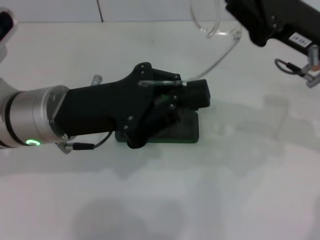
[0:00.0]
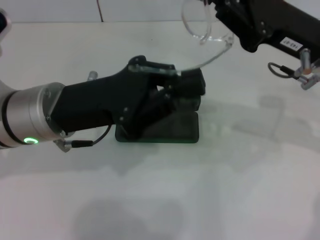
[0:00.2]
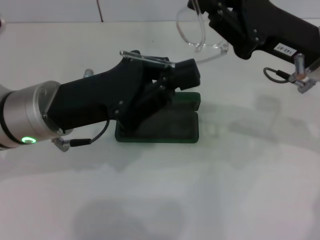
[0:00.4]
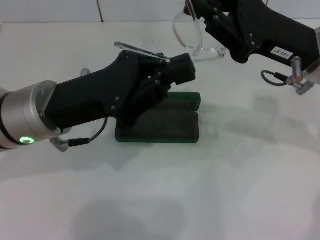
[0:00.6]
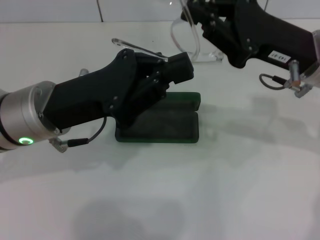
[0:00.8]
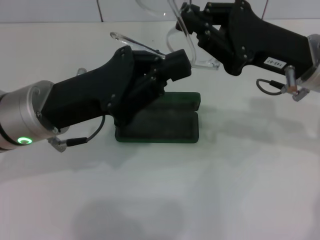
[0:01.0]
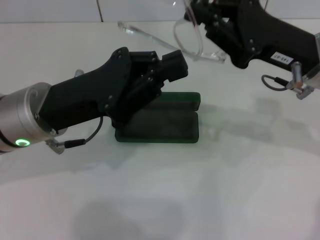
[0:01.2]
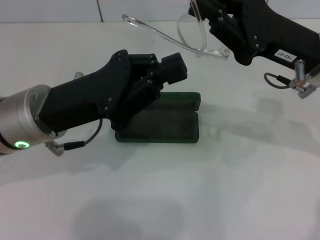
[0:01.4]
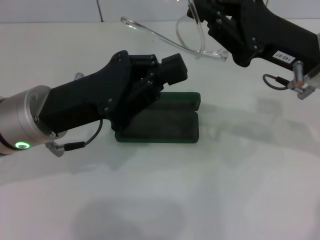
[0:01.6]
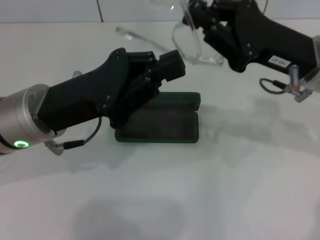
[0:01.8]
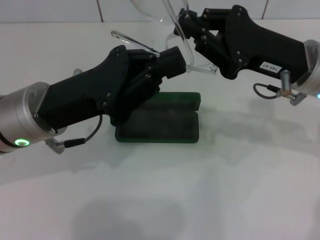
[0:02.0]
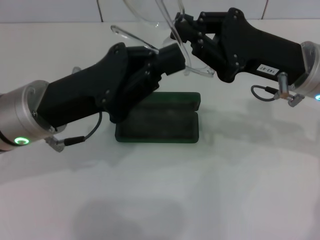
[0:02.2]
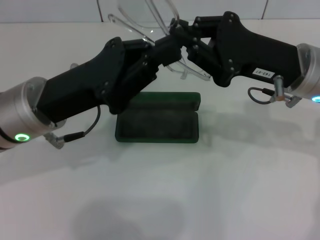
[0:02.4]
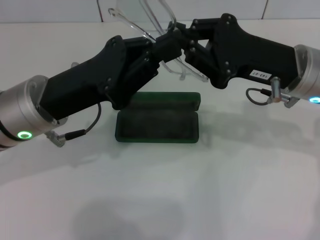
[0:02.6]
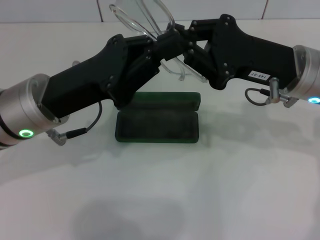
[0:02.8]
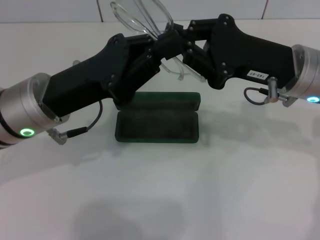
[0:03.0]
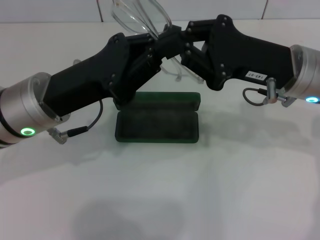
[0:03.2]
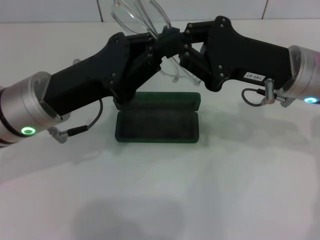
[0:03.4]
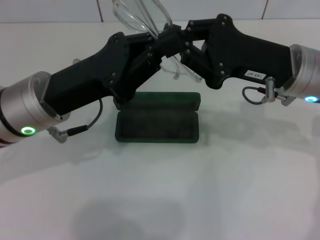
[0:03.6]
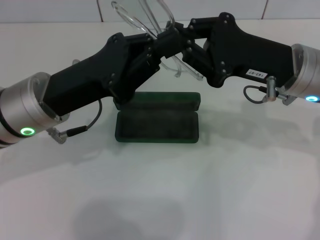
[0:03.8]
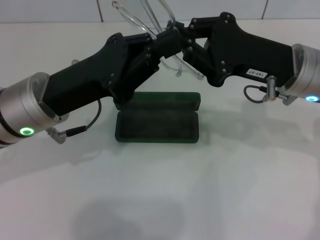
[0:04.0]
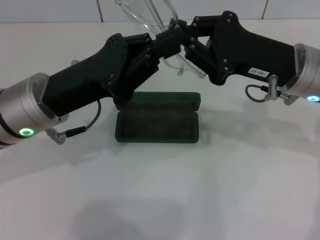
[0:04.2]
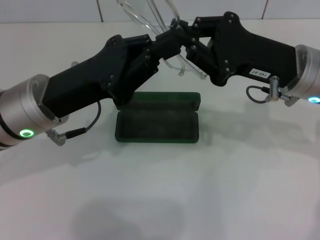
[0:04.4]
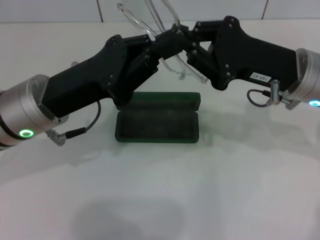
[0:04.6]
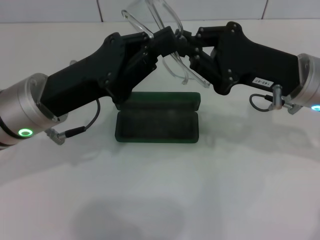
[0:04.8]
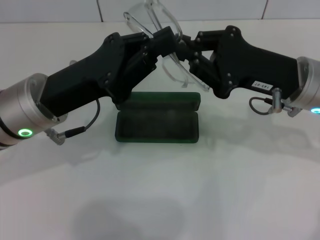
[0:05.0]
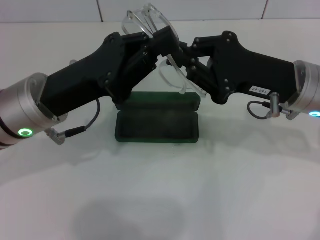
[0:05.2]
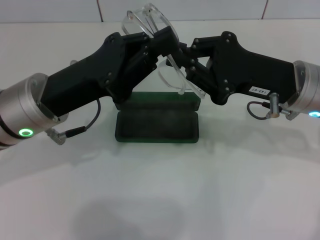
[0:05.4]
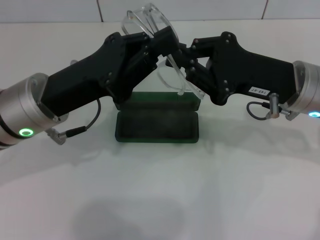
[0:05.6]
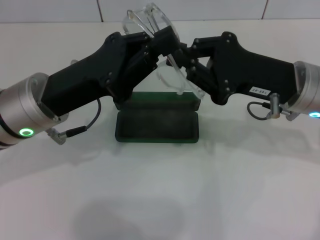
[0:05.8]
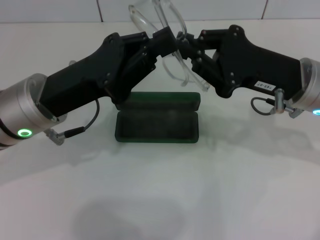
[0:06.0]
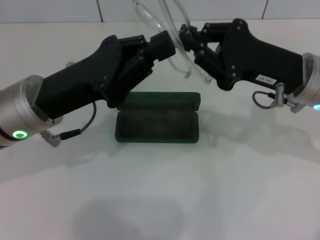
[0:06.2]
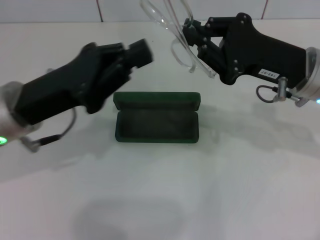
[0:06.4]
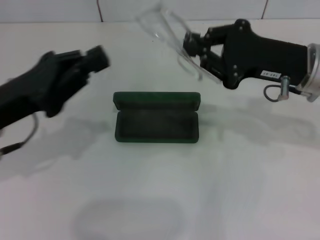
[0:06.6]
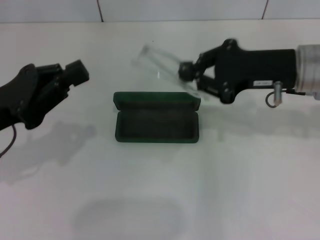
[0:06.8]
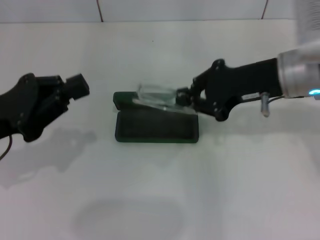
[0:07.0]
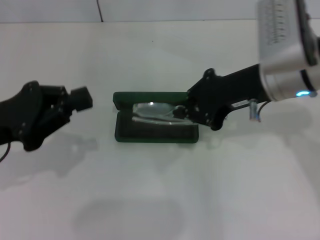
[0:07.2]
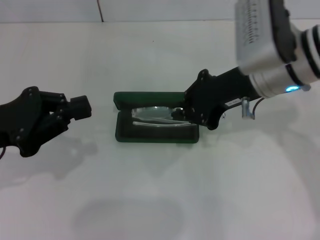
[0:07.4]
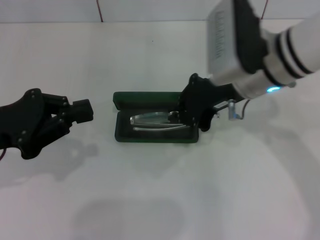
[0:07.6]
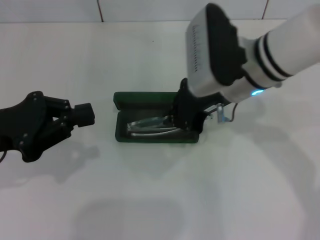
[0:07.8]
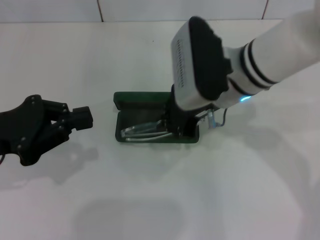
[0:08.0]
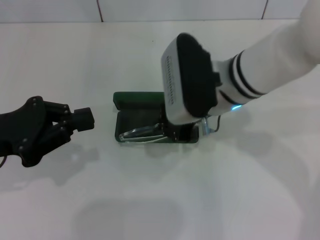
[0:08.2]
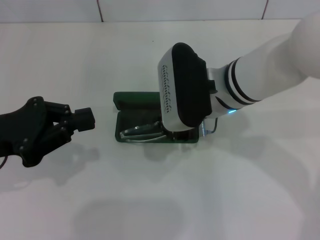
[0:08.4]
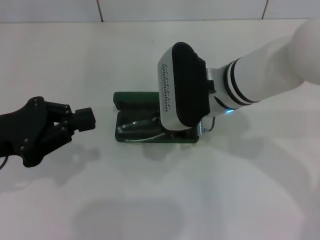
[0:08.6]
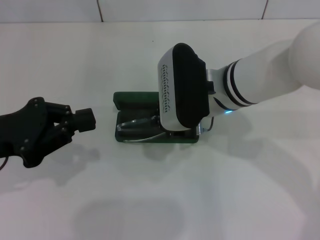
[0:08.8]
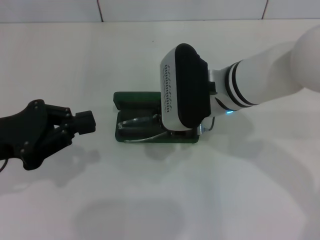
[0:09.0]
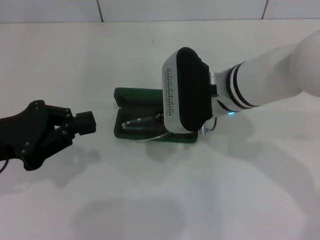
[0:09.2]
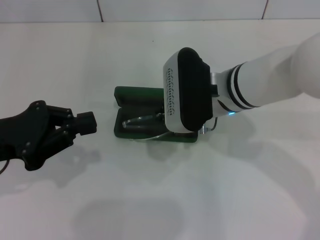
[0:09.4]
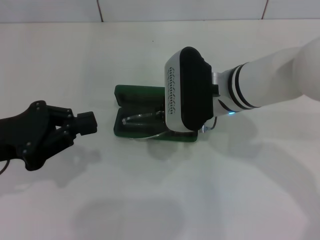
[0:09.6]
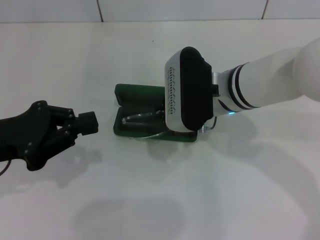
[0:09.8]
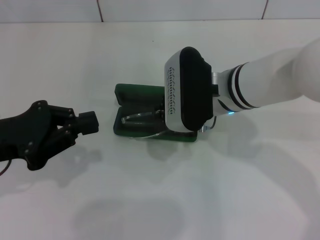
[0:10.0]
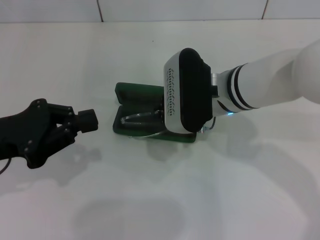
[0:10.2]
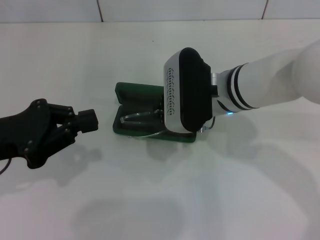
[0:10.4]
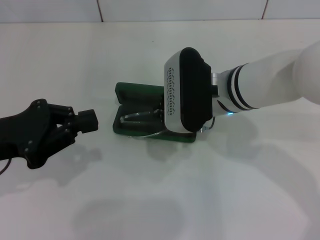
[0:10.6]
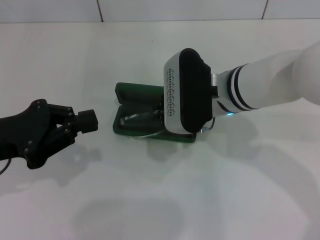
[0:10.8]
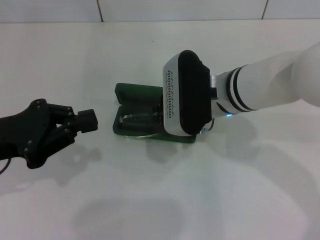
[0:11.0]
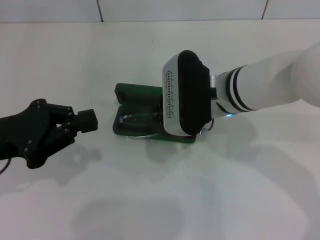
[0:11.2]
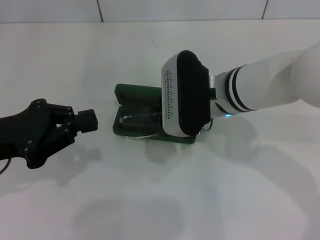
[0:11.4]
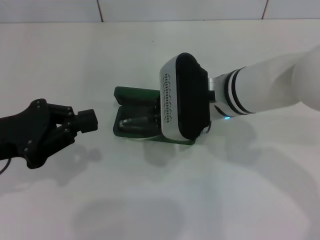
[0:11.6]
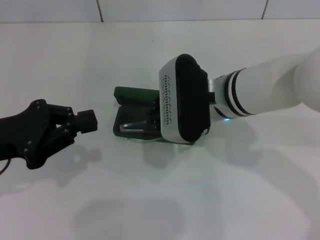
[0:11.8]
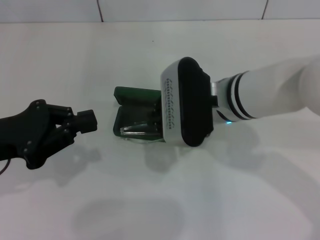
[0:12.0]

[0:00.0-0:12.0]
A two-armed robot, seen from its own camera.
Step, 0:00.0 to 0:03.8: Fold the frame with your left hand.
0:00.0 to 0:01.6: There are only small adjustments of the grippers.
0:03.0 to 0:04.4: The two grippers keep their place.
0:04.4 to 0:06.0: There are only small adjustments of the grippers.
0:06.0 to 0:07.6: Both grippers travel together to the left, some 10 cm.
0:07.6 to 0:09.0: The right gripper moves roughly 5 cm.
0:09.0 to 0:10.4: Both grippers stay about where they are.
0:10.4 to 0:12.0: The grippers make only small movements.

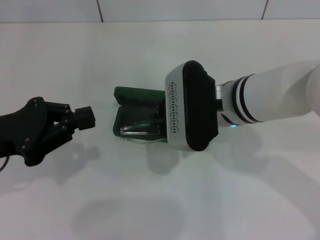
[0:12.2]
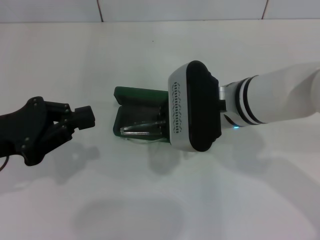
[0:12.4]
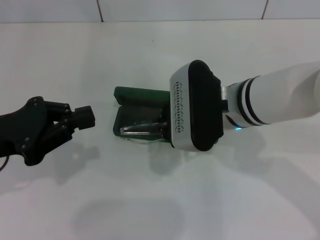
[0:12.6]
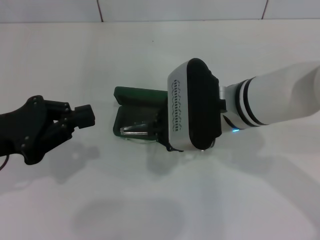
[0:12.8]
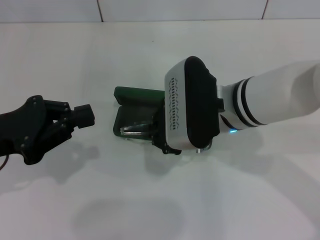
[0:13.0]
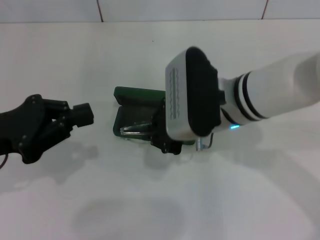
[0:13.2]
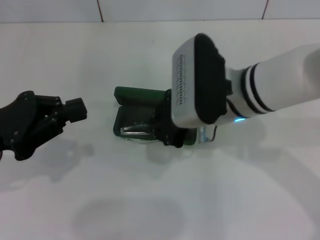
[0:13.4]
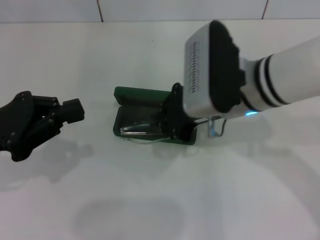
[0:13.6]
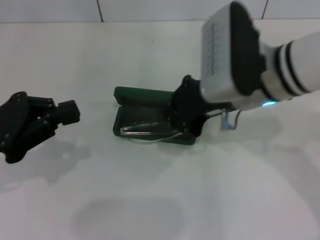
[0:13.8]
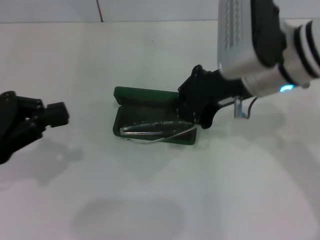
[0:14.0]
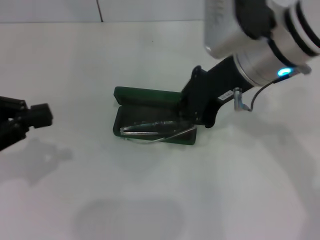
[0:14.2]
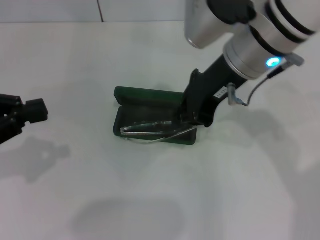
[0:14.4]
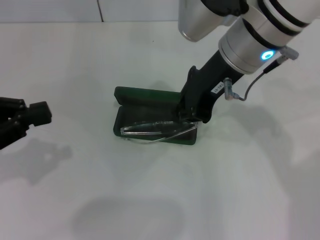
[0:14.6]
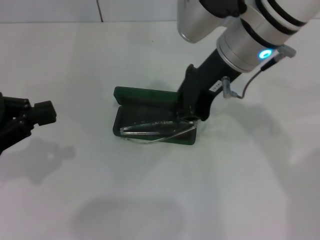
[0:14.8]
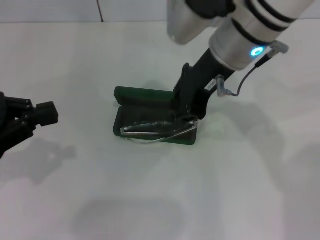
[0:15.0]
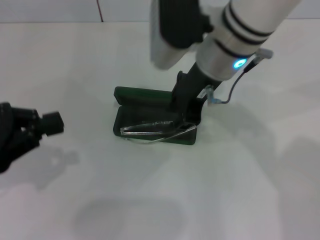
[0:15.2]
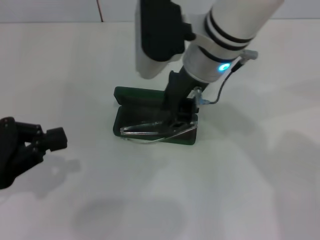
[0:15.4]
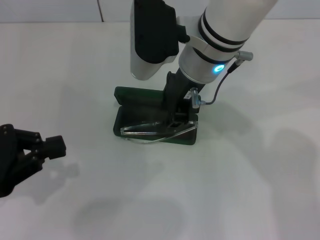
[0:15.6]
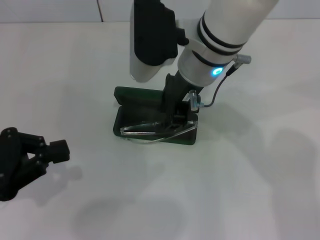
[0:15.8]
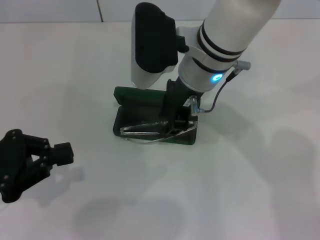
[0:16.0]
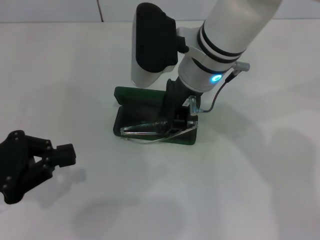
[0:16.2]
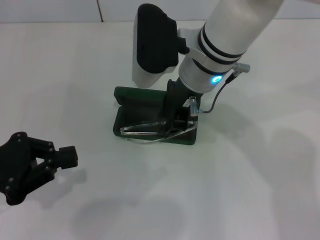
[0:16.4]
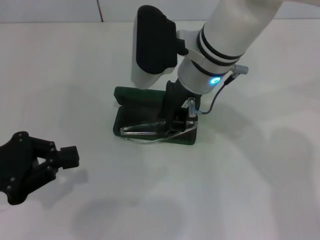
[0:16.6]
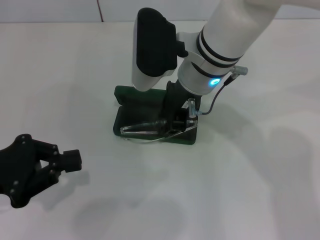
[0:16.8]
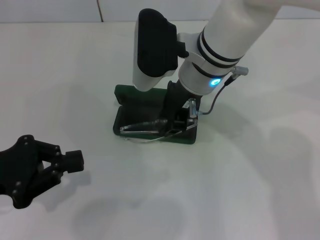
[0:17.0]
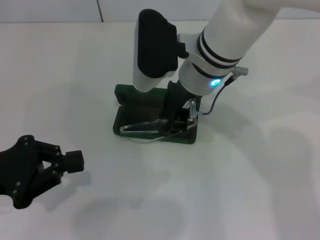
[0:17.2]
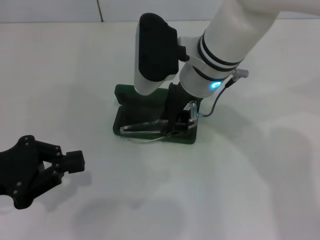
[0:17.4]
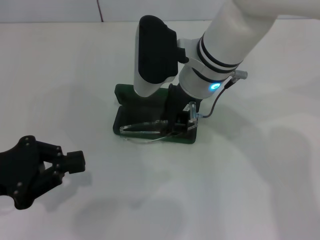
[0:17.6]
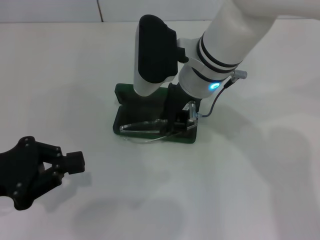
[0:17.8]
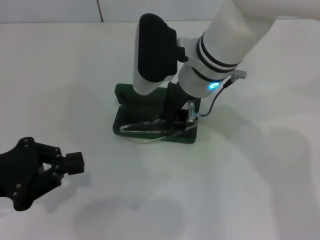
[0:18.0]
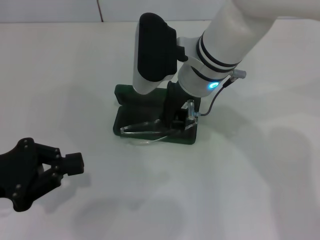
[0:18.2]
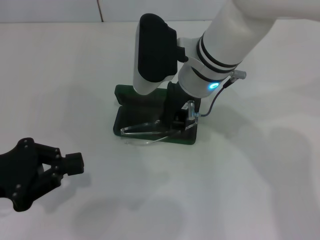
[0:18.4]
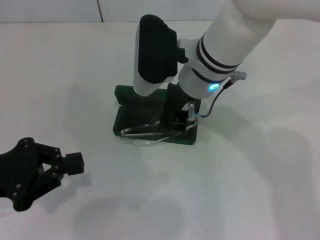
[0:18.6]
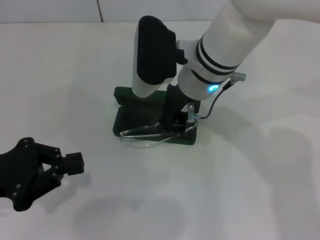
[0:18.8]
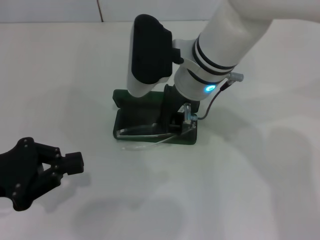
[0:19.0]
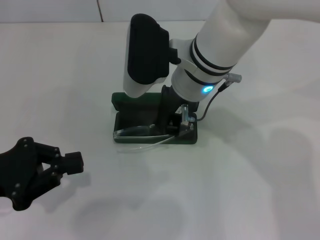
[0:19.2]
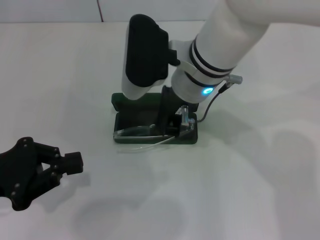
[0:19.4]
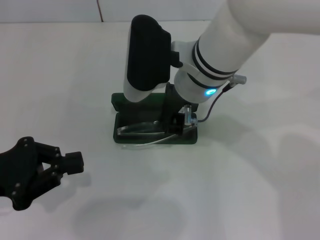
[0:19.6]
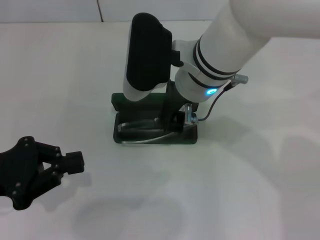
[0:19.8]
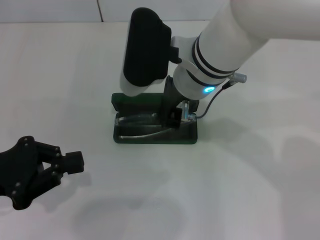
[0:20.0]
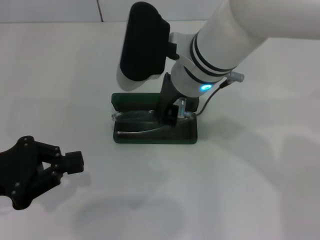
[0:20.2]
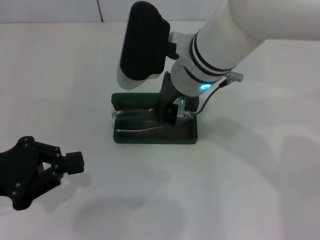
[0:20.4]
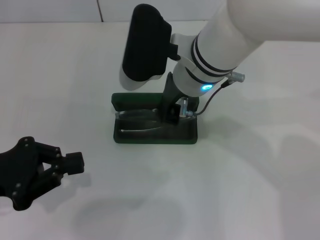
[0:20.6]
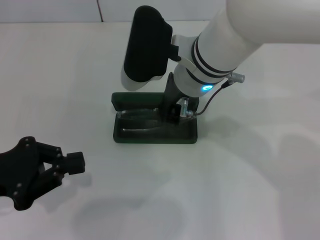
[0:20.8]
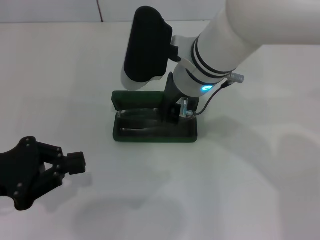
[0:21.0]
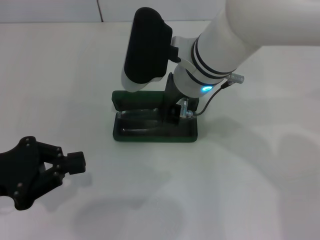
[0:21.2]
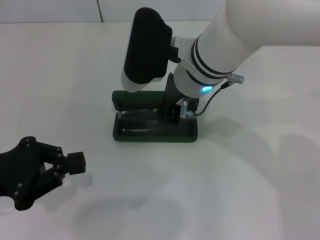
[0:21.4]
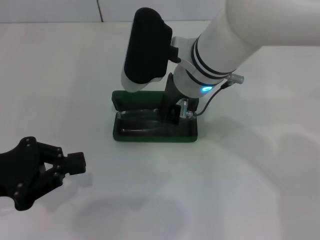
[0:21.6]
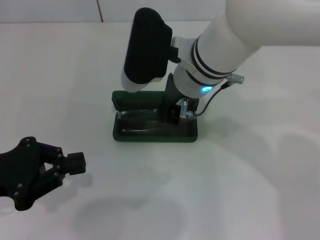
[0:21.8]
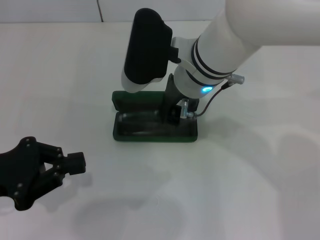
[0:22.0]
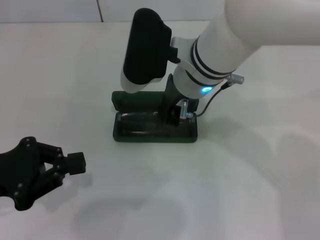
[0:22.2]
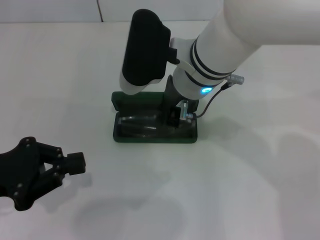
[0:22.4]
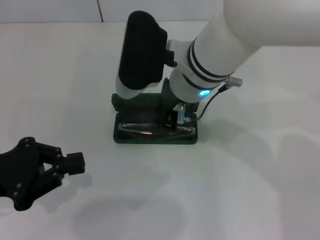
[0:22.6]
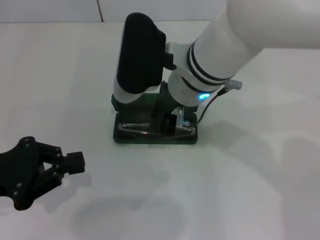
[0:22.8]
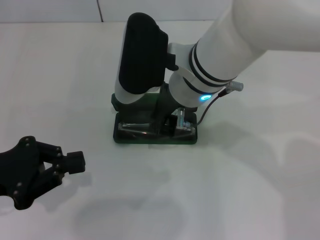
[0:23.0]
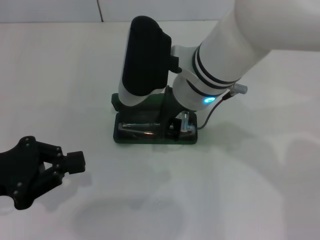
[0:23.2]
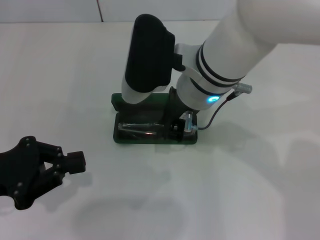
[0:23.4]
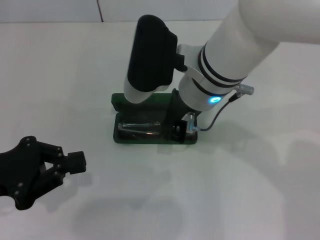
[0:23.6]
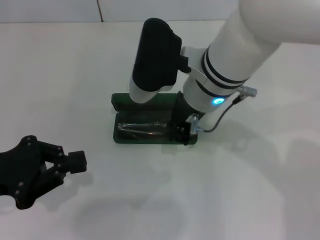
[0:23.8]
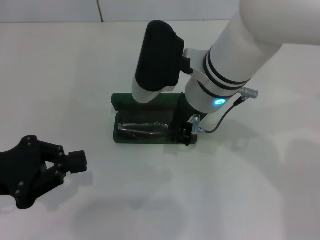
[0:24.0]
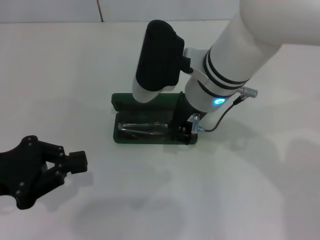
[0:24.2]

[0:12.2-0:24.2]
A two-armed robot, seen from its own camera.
0:12.2 to 0:13.8: The right gripper shifts some 5 cm upward.
0:13.8 to 0:15.2: The right gripper heads to the left, covering roughly 5 cm.
0:15.2 to 0:16.6: The grippers make only small movements.
0:16.6 to 0:18.2: Neither gripper changes place.
0:18.2 to 0:21.2: The grippers stay close to where they were, moving slightly.
0:21.2 to 0:22.6: Both grippers stay put.
0:22.6 to 0:24.2: The grippers stay close to where they were, moving slightly.
